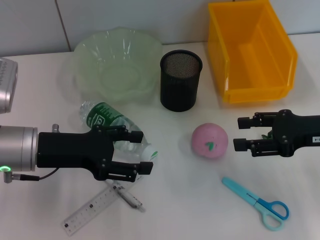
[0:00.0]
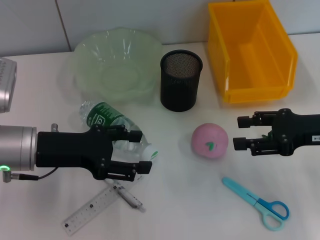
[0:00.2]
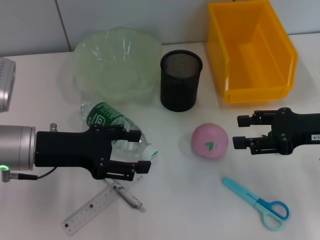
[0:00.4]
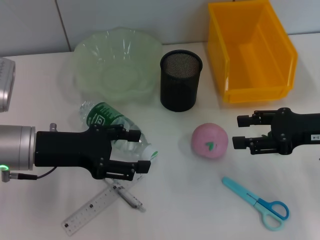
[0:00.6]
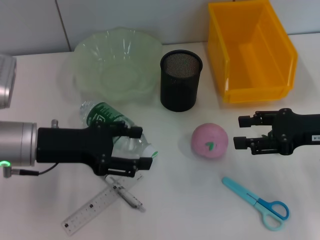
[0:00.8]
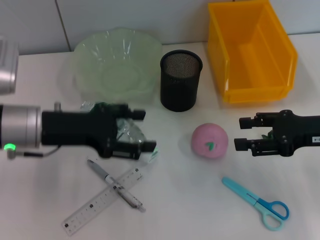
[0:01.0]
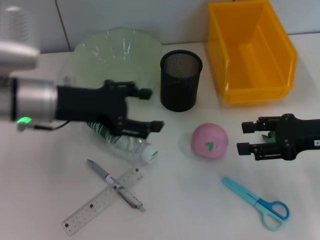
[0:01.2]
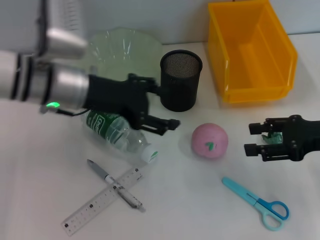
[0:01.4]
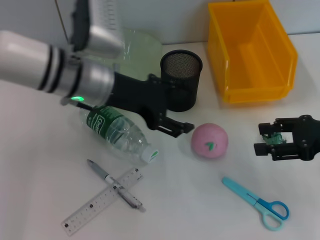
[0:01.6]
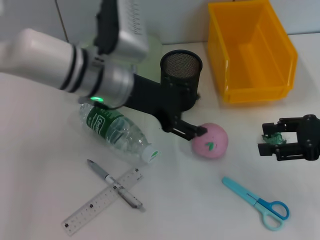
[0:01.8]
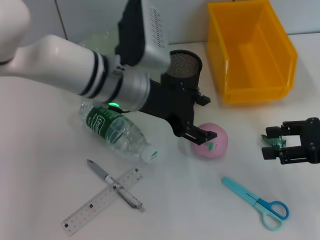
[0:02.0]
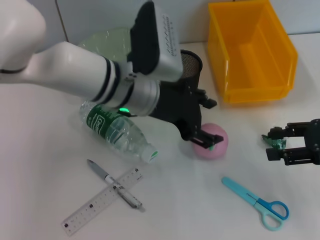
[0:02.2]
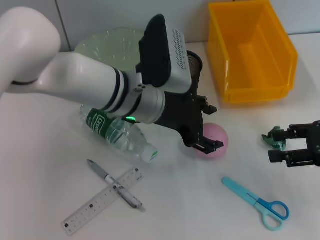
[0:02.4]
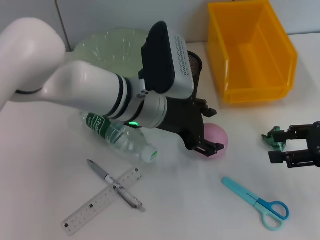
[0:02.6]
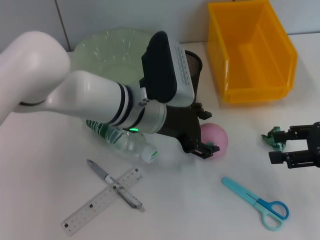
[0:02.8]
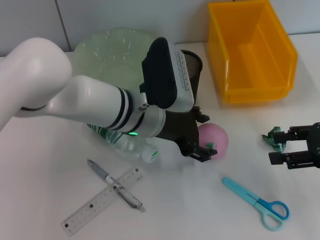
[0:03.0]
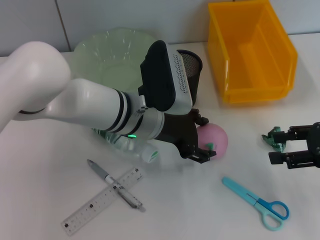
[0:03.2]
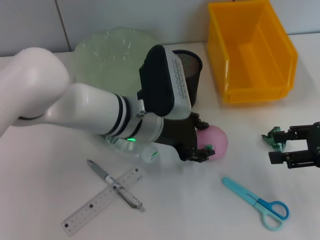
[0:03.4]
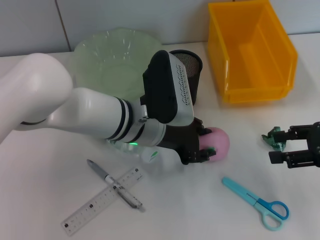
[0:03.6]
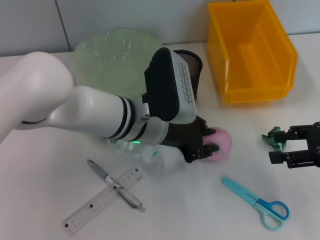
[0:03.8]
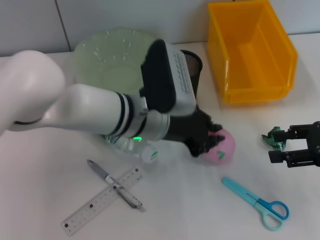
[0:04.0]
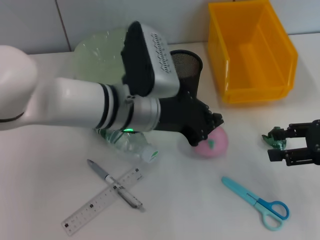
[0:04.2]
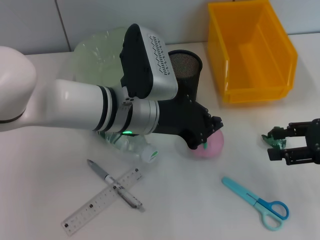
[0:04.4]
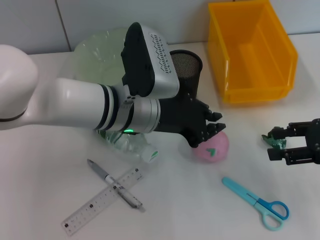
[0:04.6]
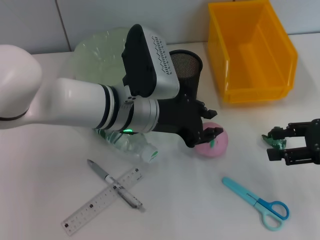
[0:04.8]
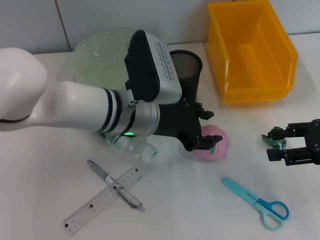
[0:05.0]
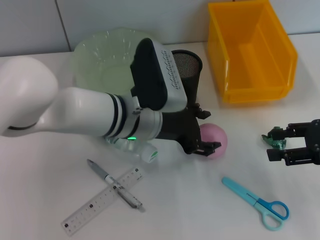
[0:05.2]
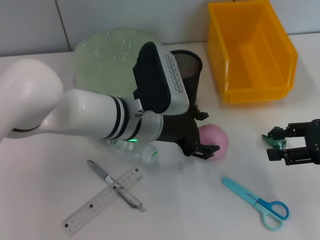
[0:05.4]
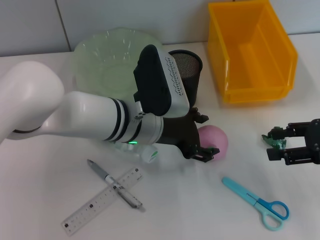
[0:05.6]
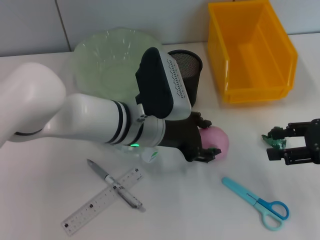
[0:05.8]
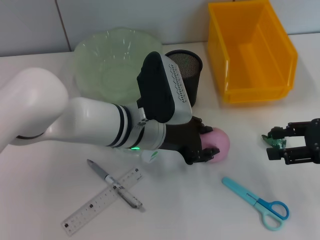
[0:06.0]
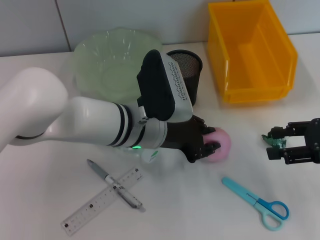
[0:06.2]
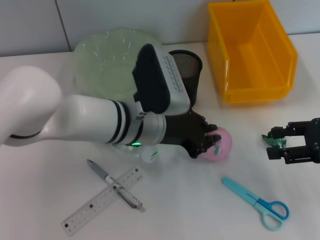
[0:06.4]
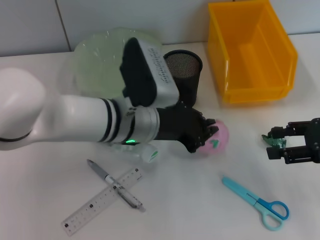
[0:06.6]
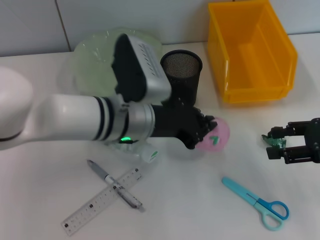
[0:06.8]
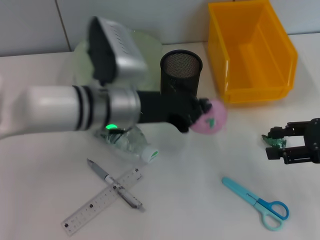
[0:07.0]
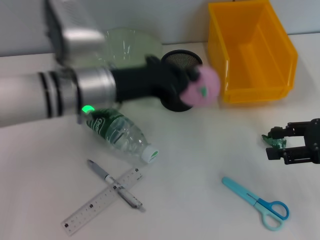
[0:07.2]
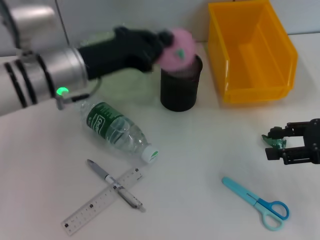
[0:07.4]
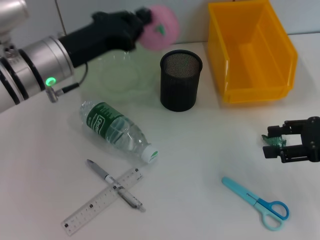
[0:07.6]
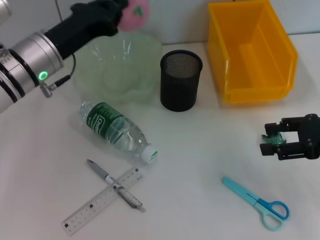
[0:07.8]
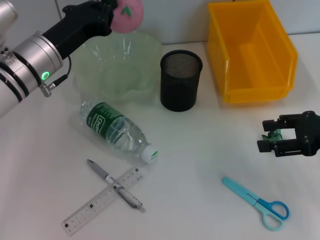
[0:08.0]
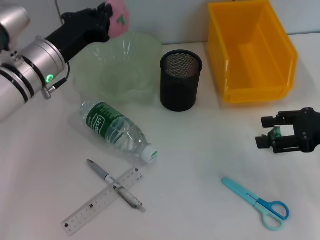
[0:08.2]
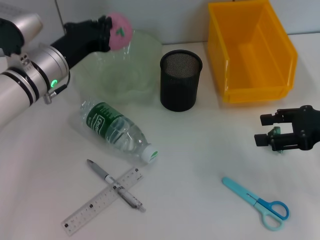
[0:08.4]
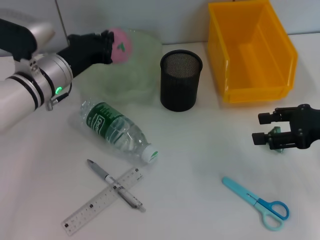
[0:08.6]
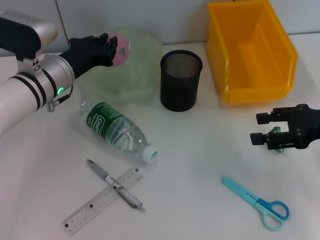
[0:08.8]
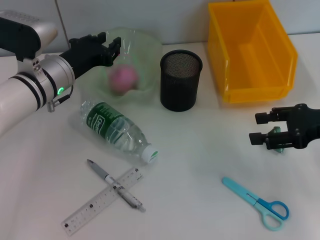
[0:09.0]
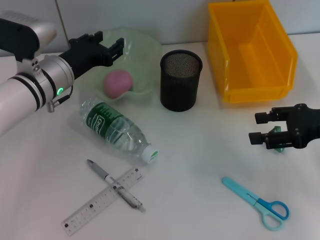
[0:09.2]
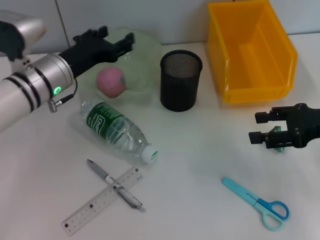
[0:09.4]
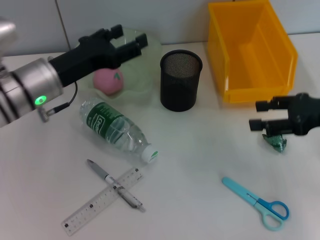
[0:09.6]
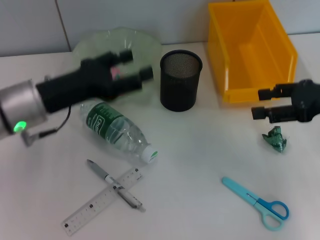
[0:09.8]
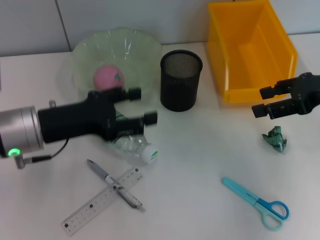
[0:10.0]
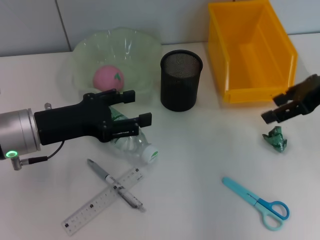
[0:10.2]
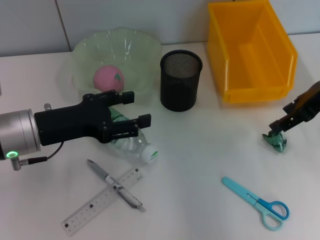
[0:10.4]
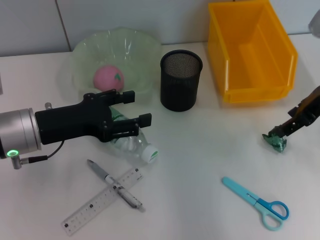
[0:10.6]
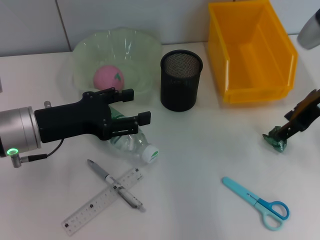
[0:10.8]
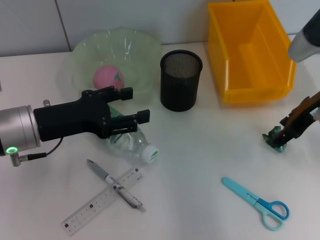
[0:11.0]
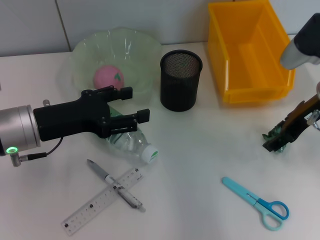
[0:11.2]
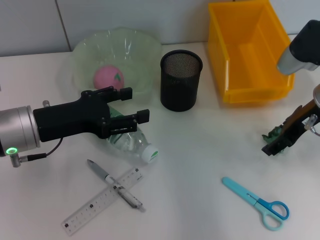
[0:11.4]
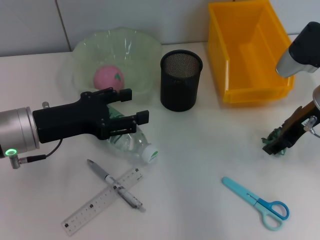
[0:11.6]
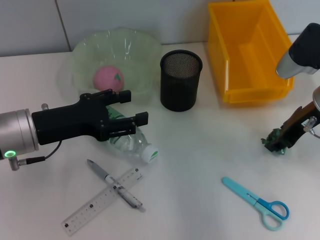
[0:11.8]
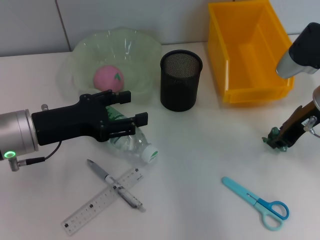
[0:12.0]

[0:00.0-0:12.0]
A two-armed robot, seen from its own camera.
Step, 0:00.0 to 0:06.2: Grab the peach with the left hand.
Step, 0:06.4 to 0:09.2: Place the peach into the fruit bowl with the left hand.
Step, 0:09.4 to 0:11.8: Grab the plastic with the right hand.
0:00.0 to 0:01.6: The left gripper is displaced to the right, forward and upward by about 15 cm.
0:01.6 to 0:03.0: The left gripper is displaced to the right and downward by about 10 cm.
0:03.0 to 0:04.4: The left gripper closes.
0:04.4 to 0:06.0: The left gripper opens.
0:06.0 to 0:07.6: The left gripper shifts roughly 15 cm to the left and upward, and closes its fingers.
0:07.6 to 0:09.0: The left gripper travels downward by about 5 cm.
0:09.0 to 0:10.4: The left gripper heads backward, covering approximately 10 cm, and opens its fingers; the right gripper is displaced upward and forward by about 10 cm.
0:10.4 to 0:12.0: The right gripper shifts some 5 cm downward.

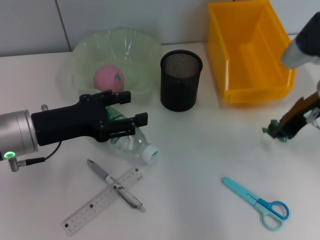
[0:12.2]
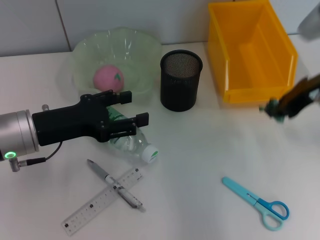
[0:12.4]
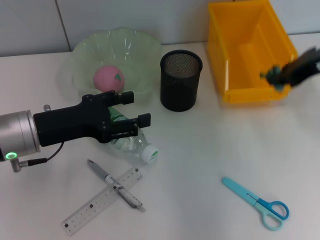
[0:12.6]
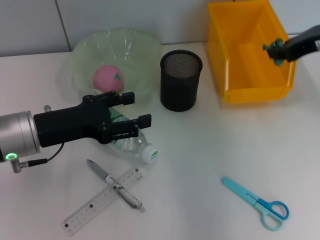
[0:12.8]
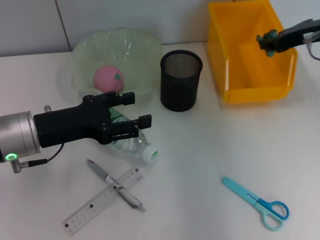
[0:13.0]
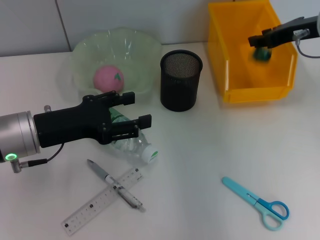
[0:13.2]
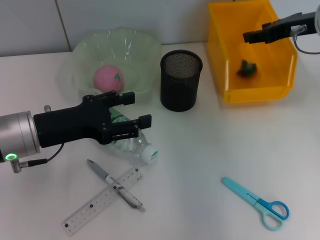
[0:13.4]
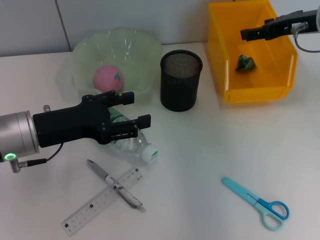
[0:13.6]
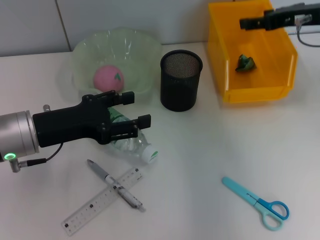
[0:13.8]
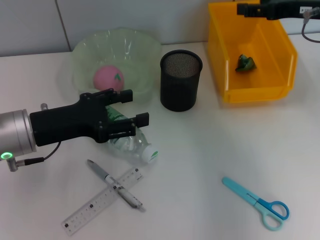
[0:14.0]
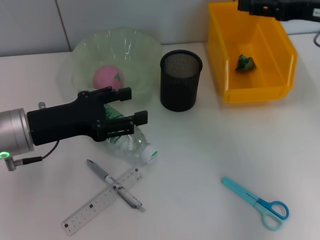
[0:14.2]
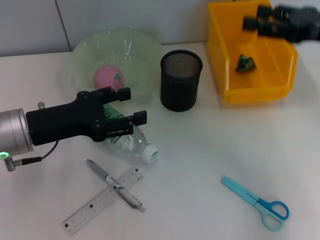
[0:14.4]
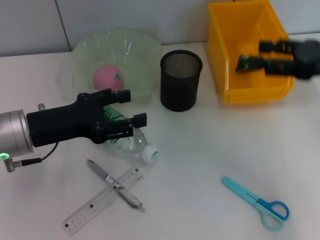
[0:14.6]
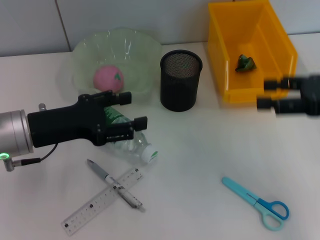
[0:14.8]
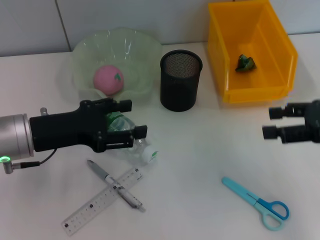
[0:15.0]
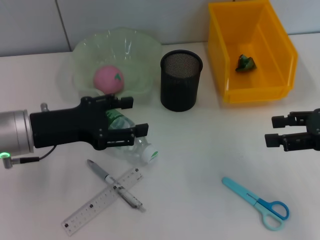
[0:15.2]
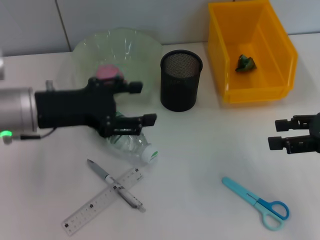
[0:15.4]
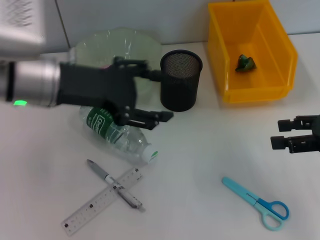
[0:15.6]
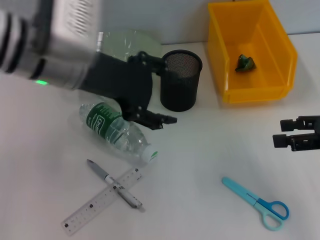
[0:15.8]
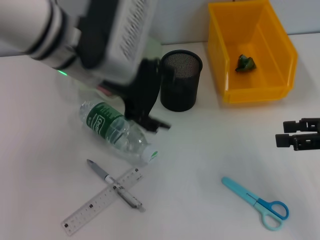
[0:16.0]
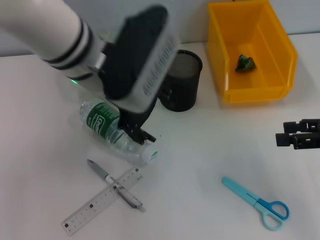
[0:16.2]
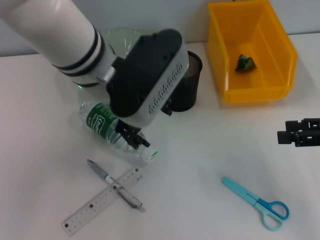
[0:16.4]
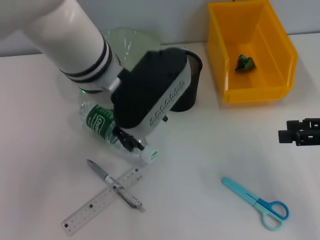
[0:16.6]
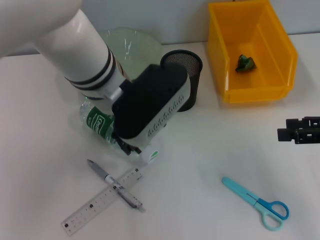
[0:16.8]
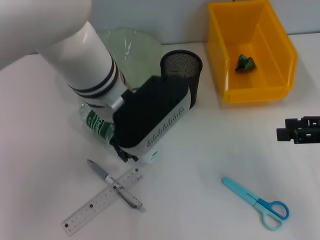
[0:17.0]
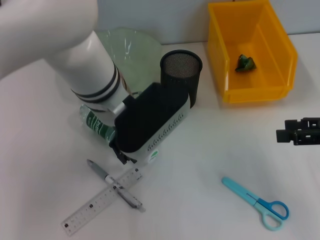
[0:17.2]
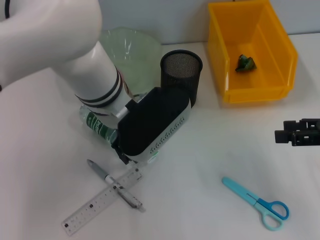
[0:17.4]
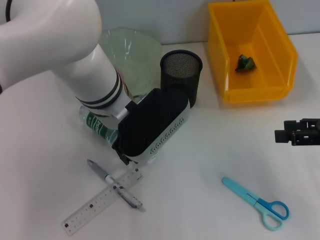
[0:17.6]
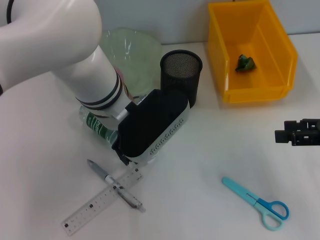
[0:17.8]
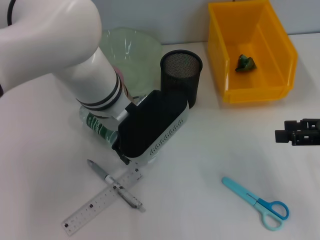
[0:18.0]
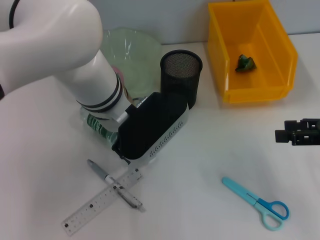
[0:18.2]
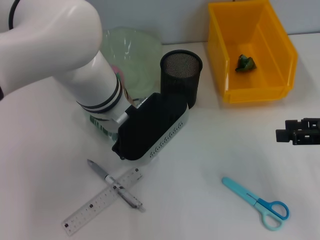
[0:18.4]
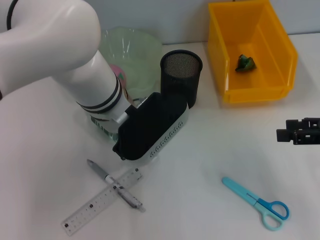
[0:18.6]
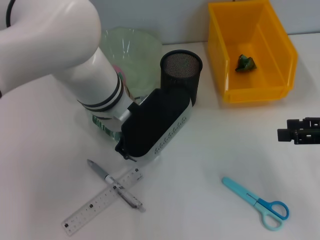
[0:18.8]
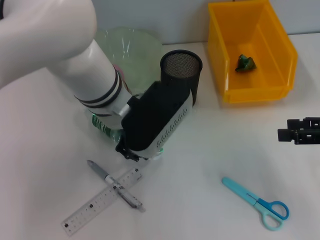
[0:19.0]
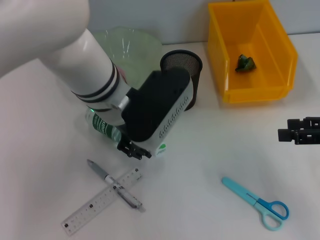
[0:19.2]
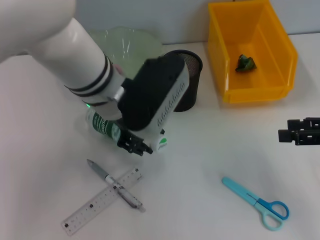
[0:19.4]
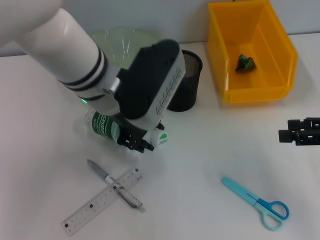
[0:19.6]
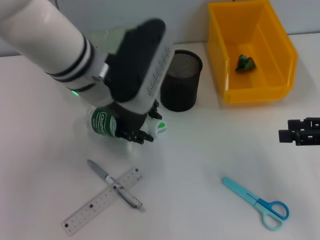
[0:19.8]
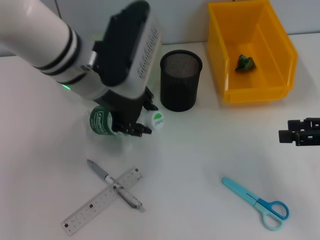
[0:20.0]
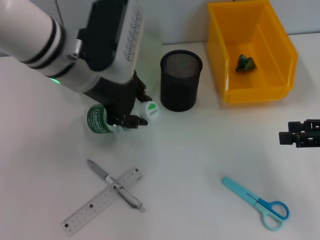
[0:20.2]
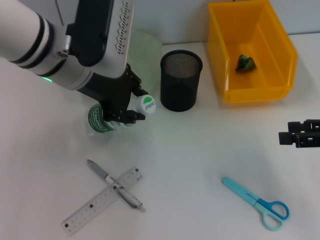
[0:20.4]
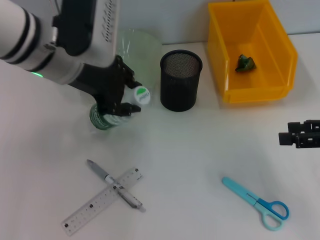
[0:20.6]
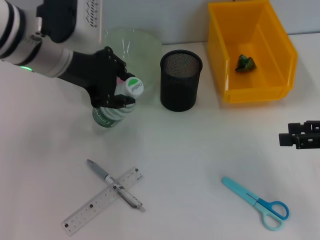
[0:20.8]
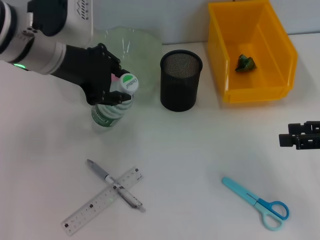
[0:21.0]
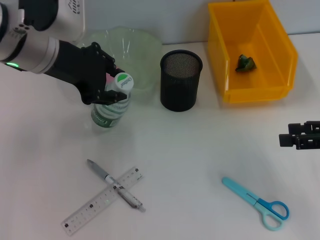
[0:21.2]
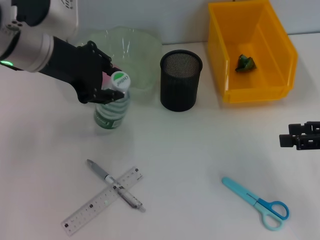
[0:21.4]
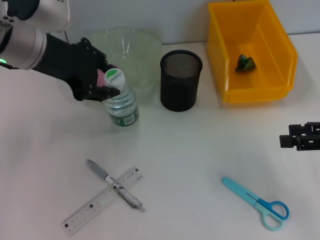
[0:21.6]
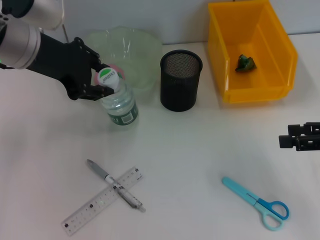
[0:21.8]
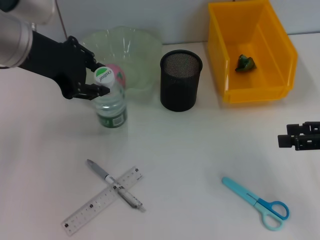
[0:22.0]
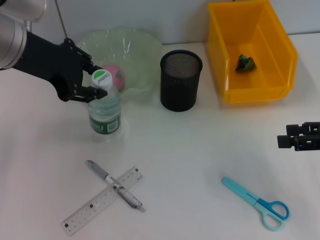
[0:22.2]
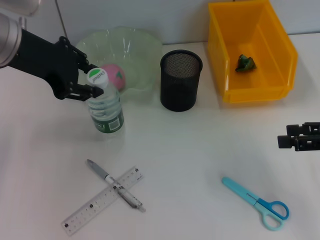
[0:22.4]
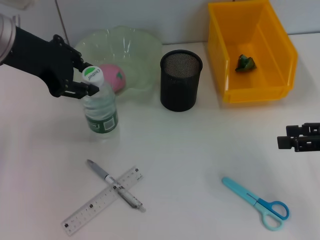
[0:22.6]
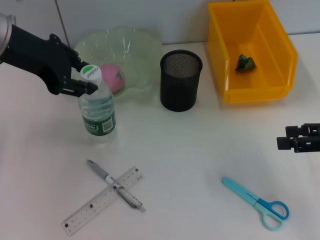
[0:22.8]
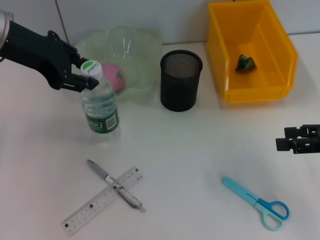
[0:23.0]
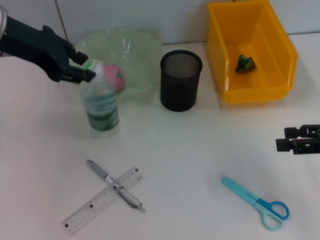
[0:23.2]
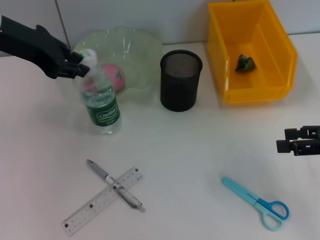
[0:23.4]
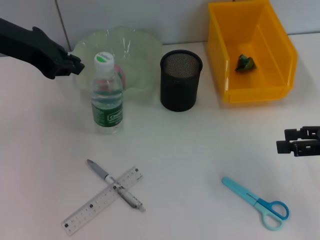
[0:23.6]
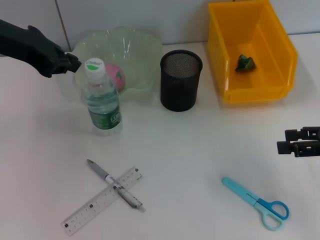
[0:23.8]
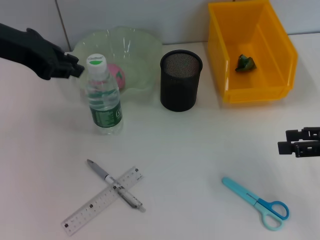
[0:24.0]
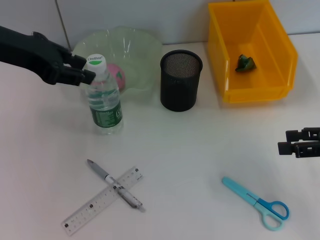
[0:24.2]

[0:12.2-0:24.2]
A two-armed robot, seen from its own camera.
Step, 0:12.2 to 0:13.6: Place the plastic into the trash can with the right hand.
Step, 0:13.8 to 0:18.8: Grab the water bottle with the left hand.
Step, 0:19.0 to 0:23.0: Place the water bottle on the table with the left hand.
0:12.2 to 0:13.8: The right gripper shifts some 5 cm forward and upward, and opens up.
0:13.8 to 0:15.2: The right gripper shifts some 15 cm backward and downward.
0:15.2 to 0:16.6: The left gripper goes about 20 cm to the right and upward.
0:16.6 to 0:18.2: The left gripper goes about 5 cm downward.
0:18.2 to 0:19.8: The left gripper moves upward, about 5 cm, and closes.
0:19.8 to 0:21.2: The left gripper moves to the left, about 10 cm.
0:21.2 to 0:22.6: The grippers move only a little.
